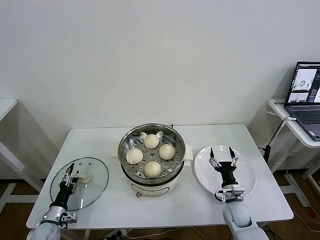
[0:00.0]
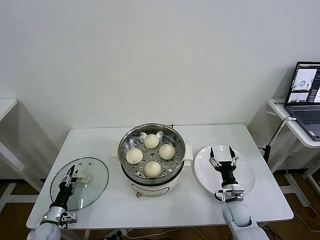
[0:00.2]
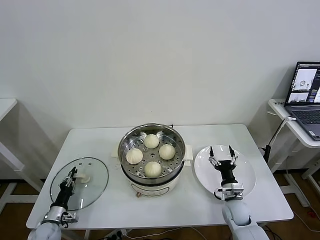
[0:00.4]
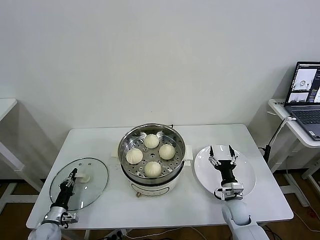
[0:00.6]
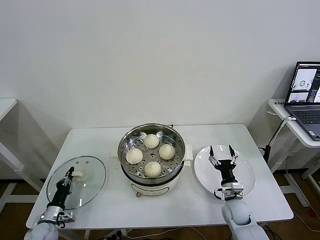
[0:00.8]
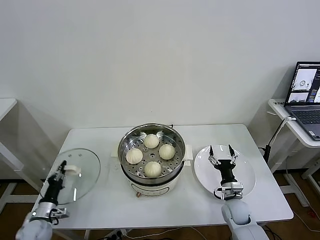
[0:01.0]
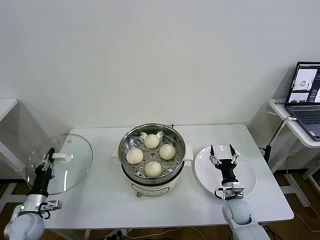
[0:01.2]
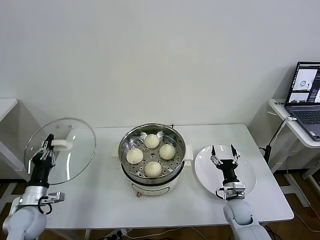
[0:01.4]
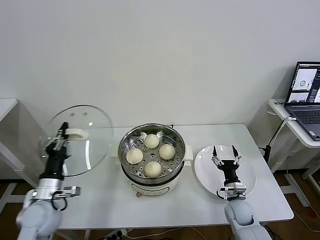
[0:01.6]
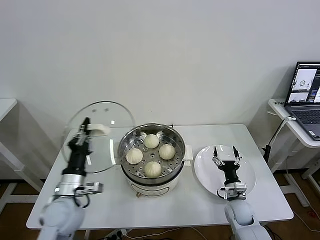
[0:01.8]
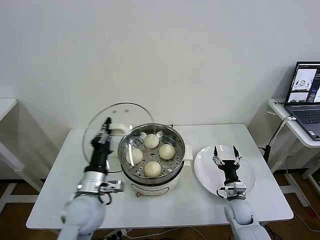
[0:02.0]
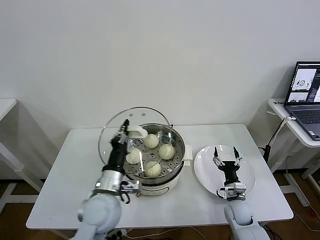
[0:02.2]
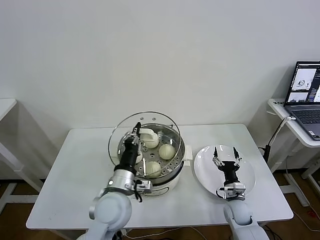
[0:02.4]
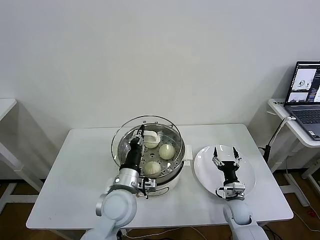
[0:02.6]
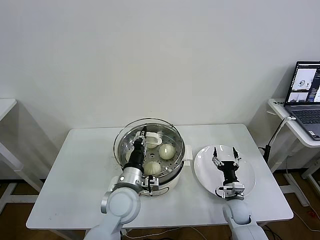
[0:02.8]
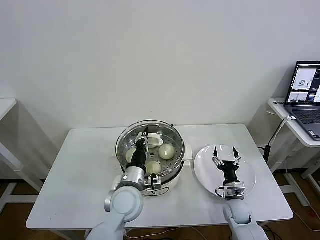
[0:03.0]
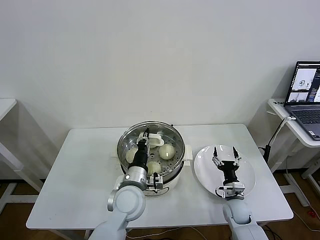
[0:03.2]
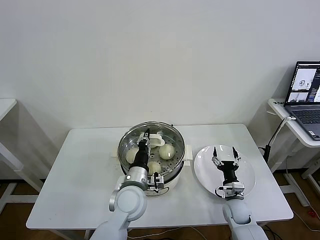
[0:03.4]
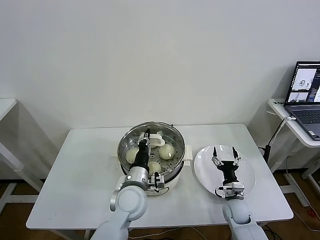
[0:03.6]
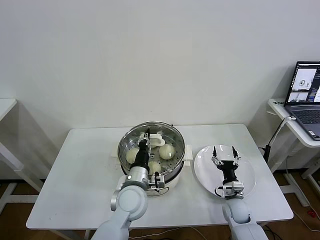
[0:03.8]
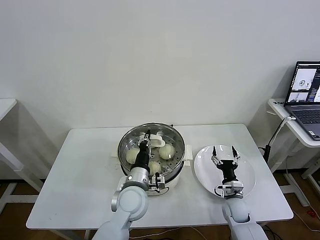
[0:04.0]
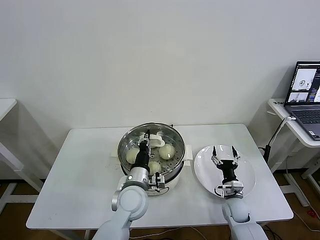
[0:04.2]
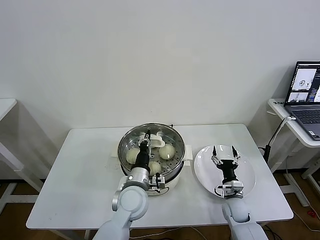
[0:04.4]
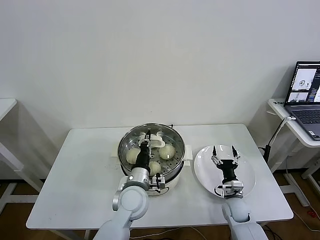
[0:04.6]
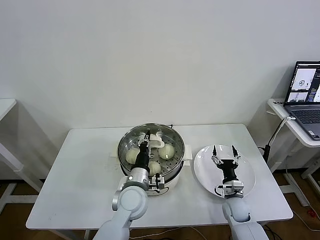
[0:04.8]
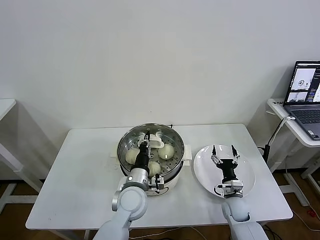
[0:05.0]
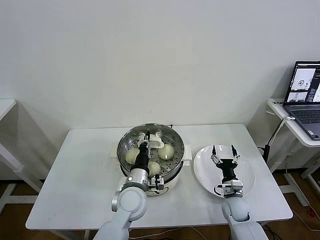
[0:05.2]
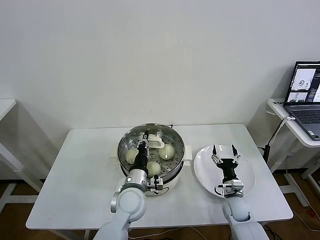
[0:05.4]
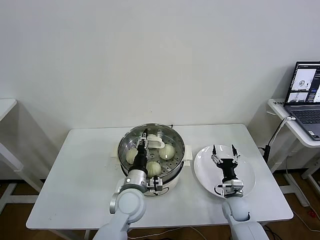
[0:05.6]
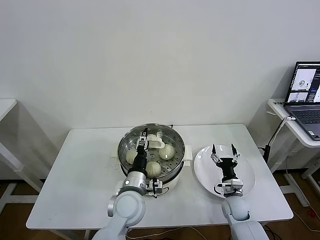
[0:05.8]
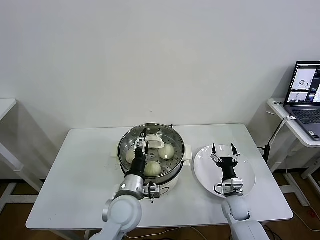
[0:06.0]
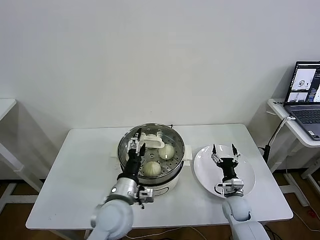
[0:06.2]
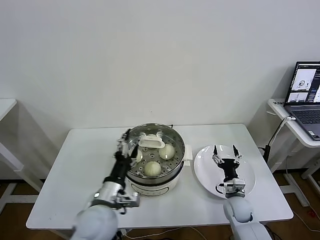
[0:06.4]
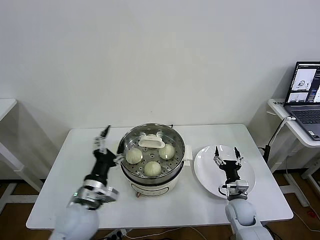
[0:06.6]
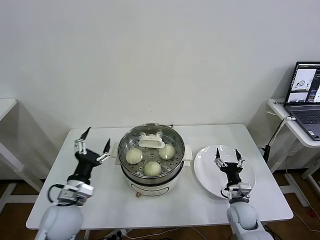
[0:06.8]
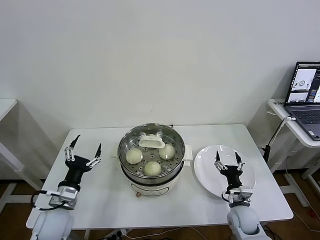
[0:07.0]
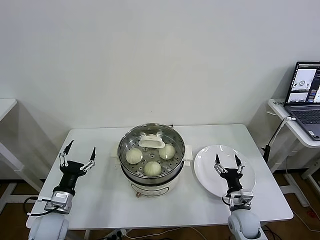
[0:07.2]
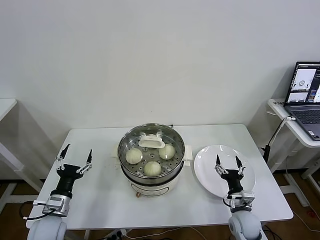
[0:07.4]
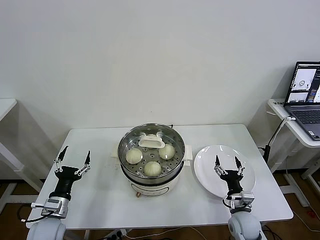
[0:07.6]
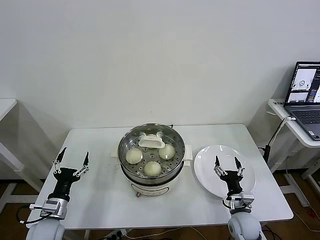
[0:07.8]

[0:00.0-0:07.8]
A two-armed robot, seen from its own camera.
Task of the whole recording: take steamed baozi put them in steamer then cover it.
Step, 0:00.8 to 0:05.4: Place the pot lid on the steamer with left gripper.
0:00.0 to 0:01.6: The left gripper moves upward, some 20 cm, and closes up.
0:01.6 to 0:03.2: The left gripper heads to the right, covering about 25 cm.
0:03.2 to 0:04.6: The grippers move only a little.
0:04.6 to 0:06.2: The left gripper moves about 5 cm, and opens its fingers.
0:06.2 to 0:07.8: The left gripper shifts roughly 25 cm to the left; the right gripper moves backward, some 5 cm.
